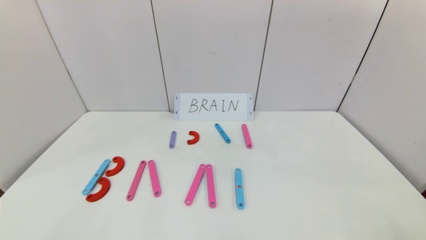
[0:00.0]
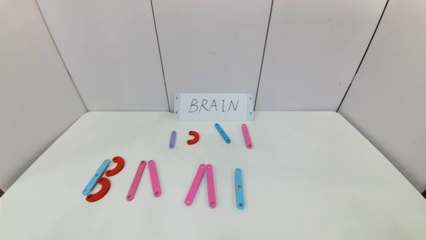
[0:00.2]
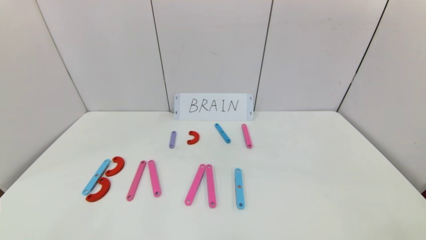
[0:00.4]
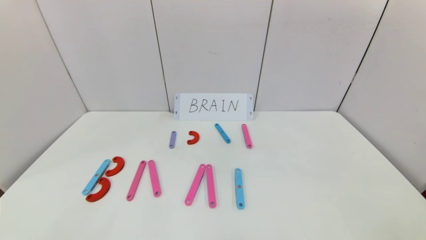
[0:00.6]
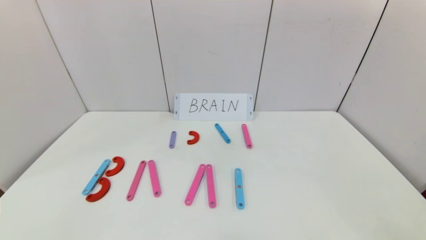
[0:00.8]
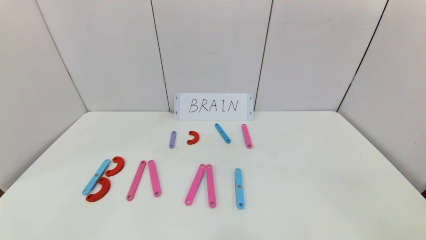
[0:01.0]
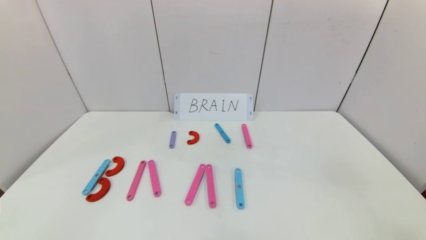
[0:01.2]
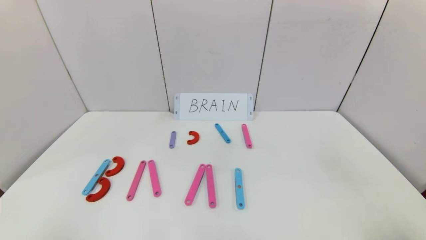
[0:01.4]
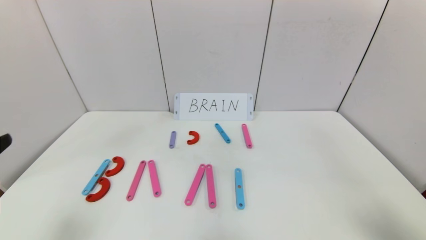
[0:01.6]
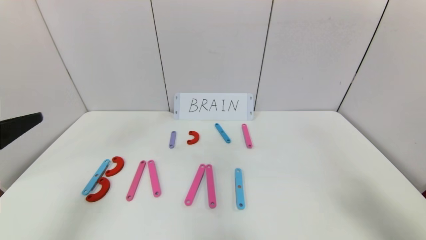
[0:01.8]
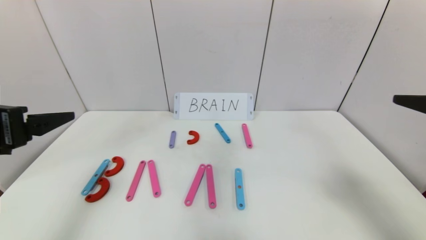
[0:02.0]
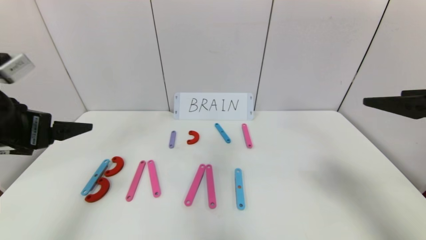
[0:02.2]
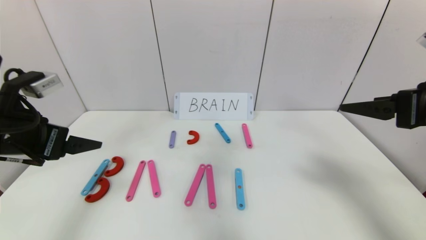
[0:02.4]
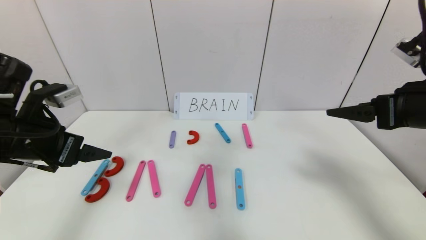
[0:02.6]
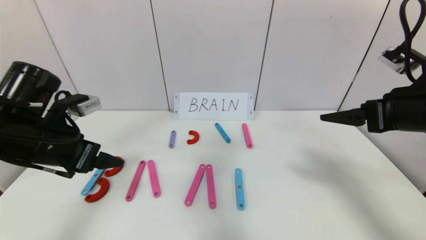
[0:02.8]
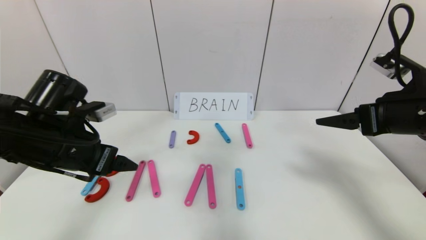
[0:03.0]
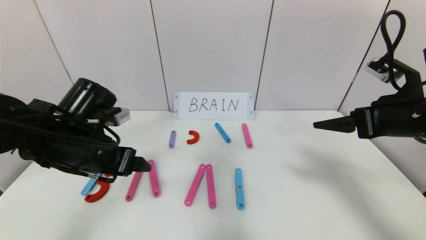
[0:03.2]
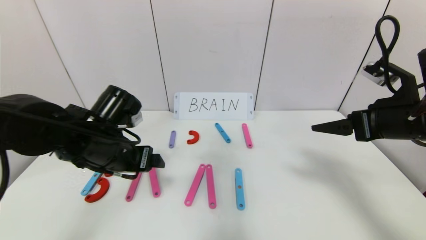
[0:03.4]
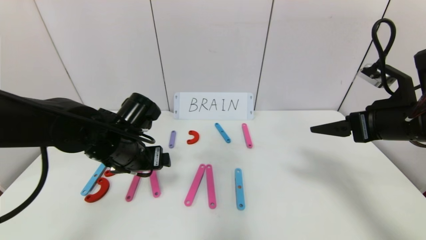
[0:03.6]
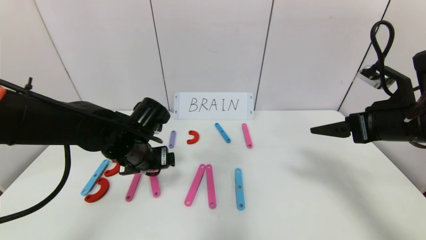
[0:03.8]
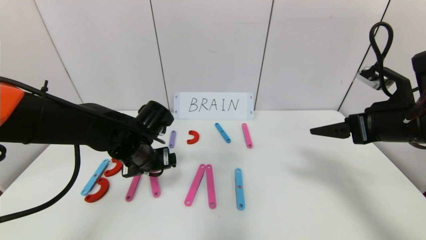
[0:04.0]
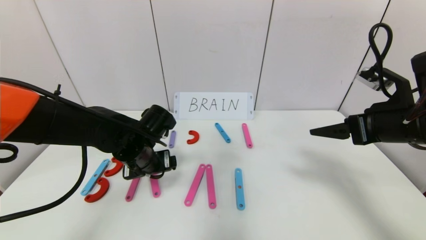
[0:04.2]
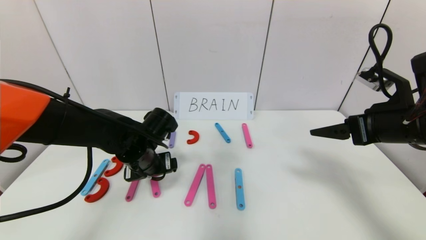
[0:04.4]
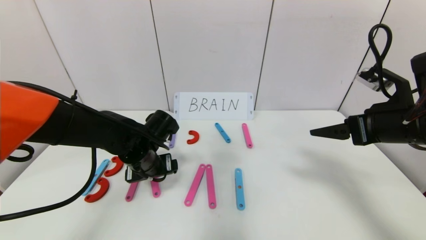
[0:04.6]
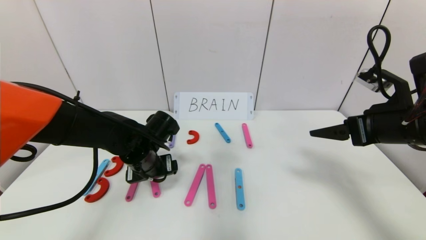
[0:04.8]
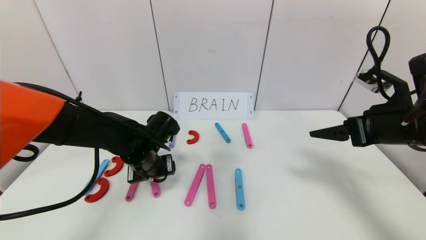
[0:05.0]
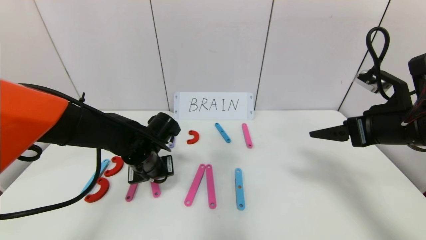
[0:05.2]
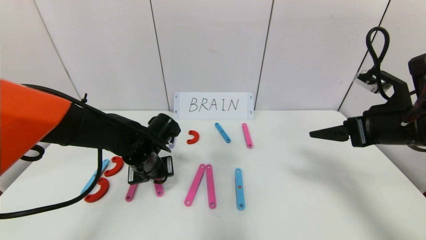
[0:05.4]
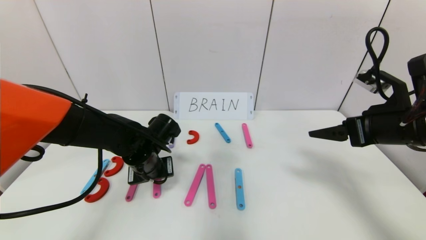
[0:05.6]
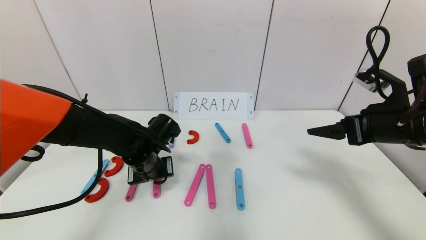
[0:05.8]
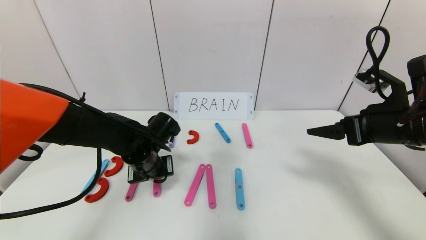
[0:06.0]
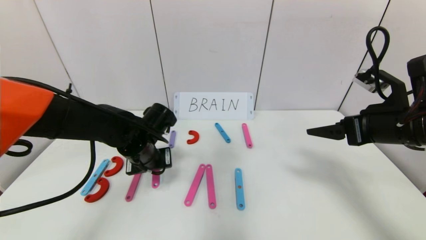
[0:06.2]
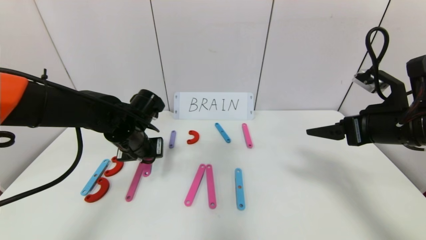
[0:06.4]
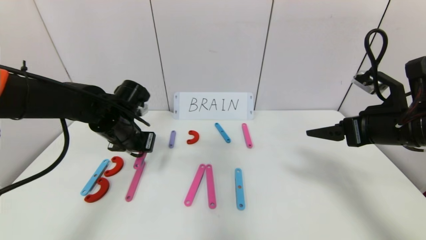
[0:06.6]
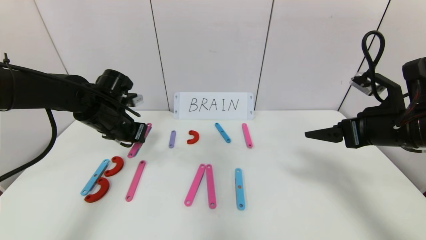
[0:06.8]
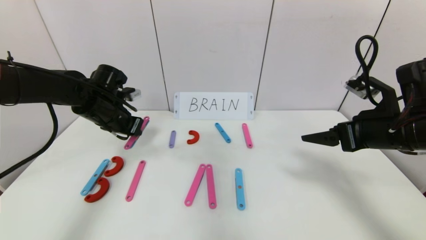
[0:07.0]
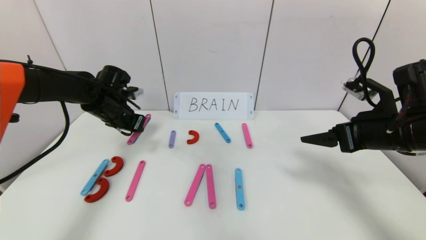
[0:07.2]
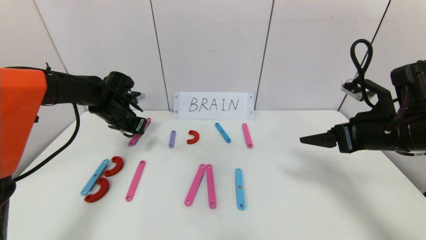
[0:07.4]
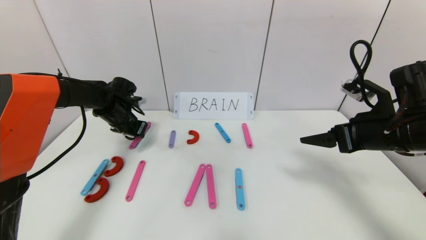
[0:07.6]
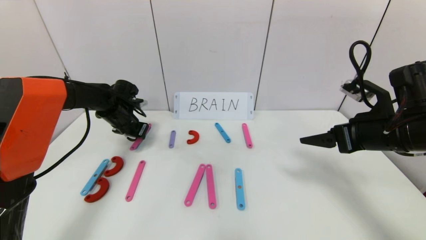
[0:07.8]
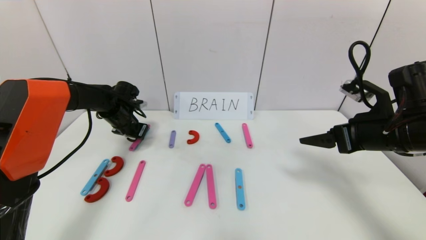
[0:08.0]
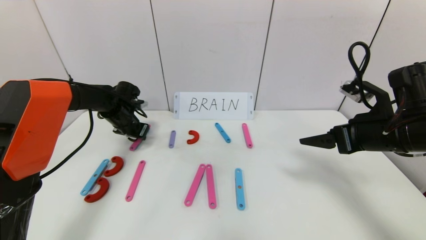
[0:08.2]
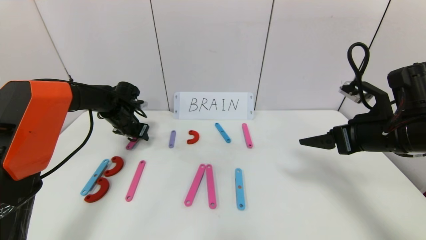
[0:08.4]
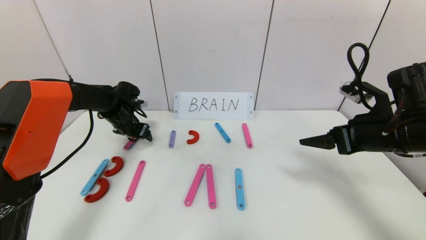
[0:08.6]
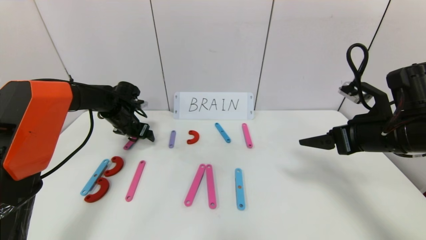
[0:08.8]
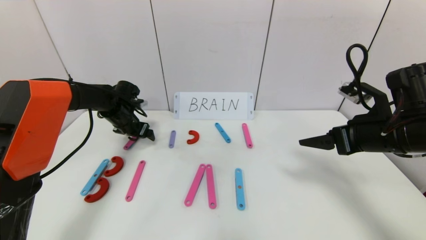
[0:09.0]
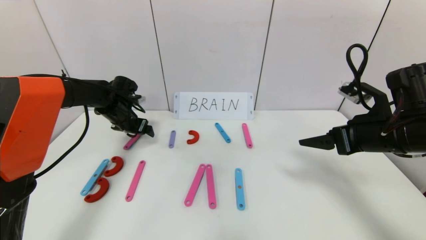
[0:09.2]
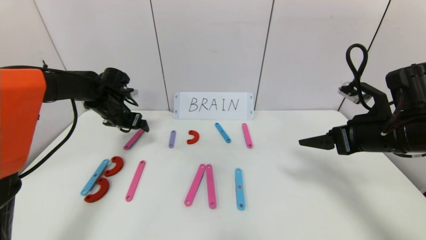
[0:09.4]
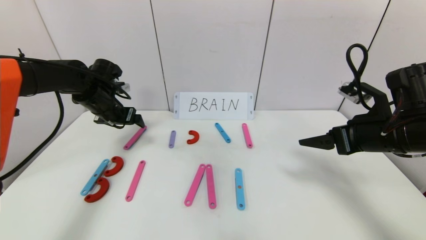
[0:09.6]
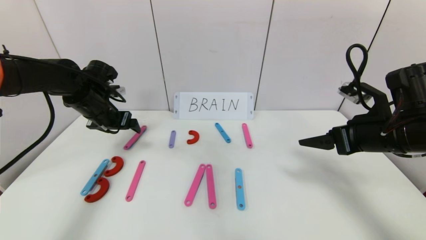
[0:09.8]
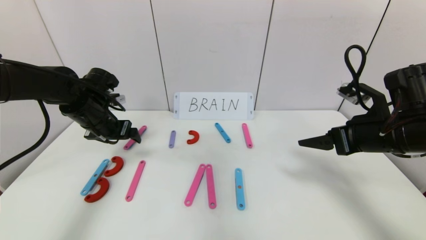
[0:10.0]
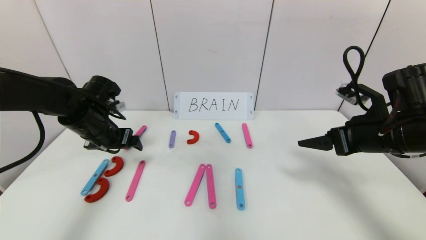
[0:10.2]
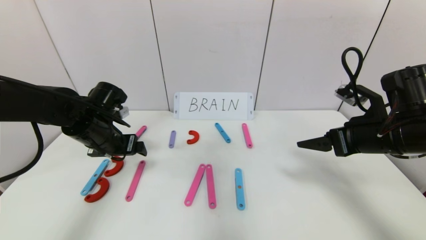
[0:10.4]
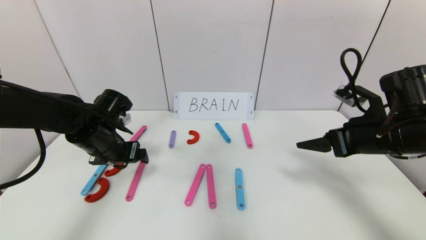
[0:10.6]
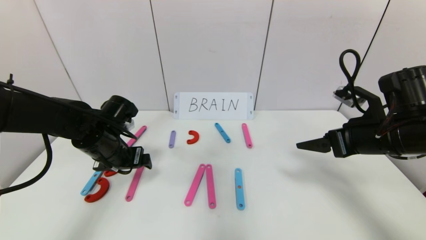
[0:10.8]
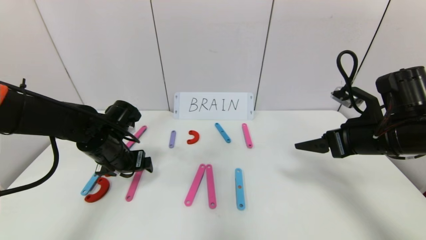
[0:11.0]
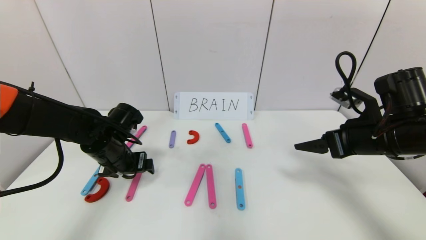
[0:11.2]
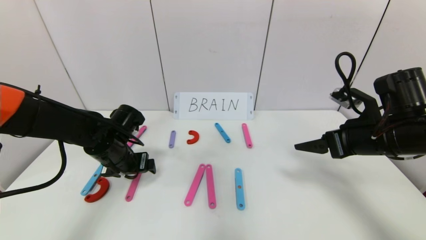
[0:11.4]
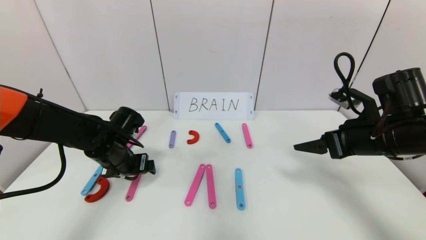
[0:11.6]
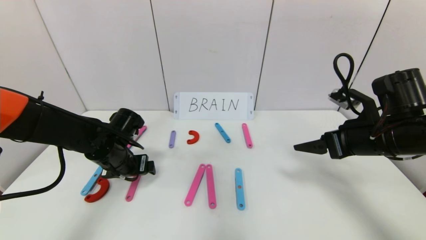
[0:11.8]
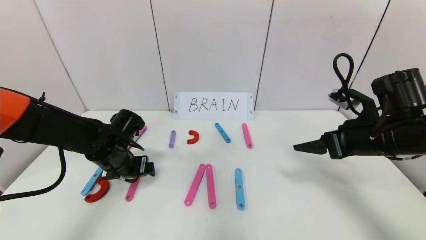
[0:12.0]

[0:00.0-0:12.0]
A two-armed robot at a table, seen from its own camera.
Task of the whole recording: rearrange the word baai as brain.
0:00.0 to 0:01.6: The right gripper is displaced upward by roughly 20 cm.
0:01.6 to 0:03.0: The two grippers go about 20 cm forward.
0:03.0 to 0:04.4: The left gripper moves to the right, downward and forward, roughly 15 cm.
0:04.4 to 0:06.0: The left gripper closes its fingers.
0:06.0 to 0:07.6: The left gripper travels forward and to the left by approximately 20 cm.
0:07.6 to 0:09.0: The left gripper opens up.
0:09.0 to 0:10.4: The left gripper is displaced backward by about 15 cm.
0:10.4 to 0:12.0: The left gripper shifts roughly 5 cm downward.

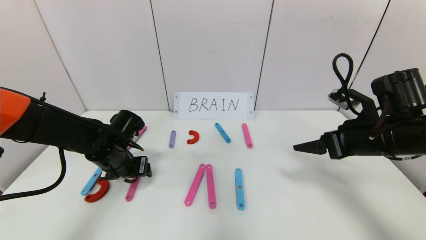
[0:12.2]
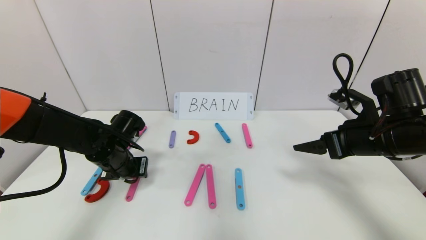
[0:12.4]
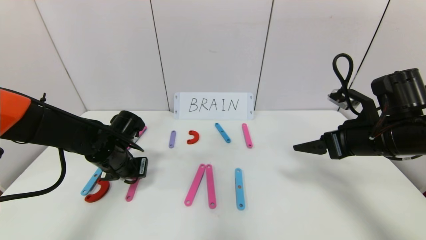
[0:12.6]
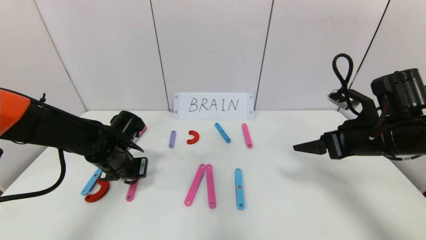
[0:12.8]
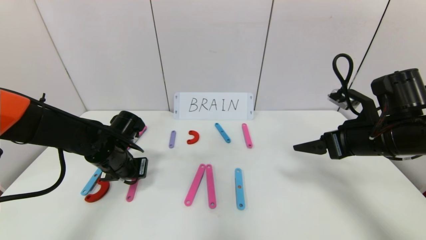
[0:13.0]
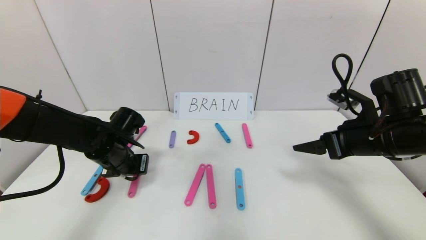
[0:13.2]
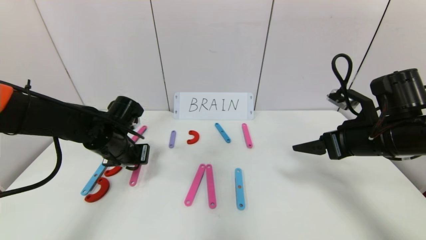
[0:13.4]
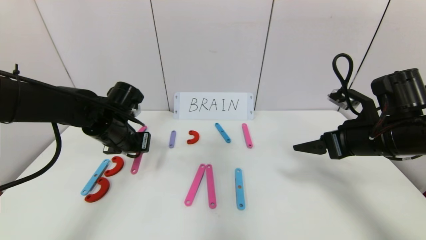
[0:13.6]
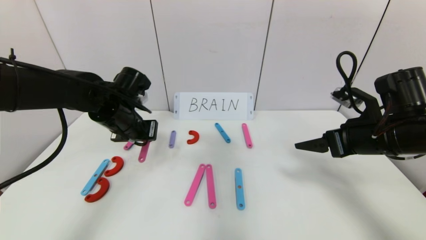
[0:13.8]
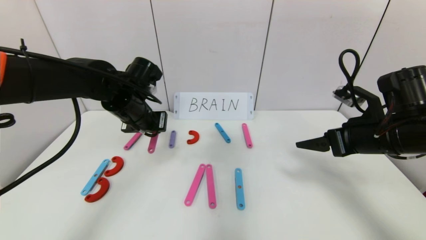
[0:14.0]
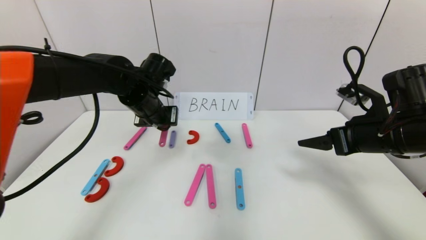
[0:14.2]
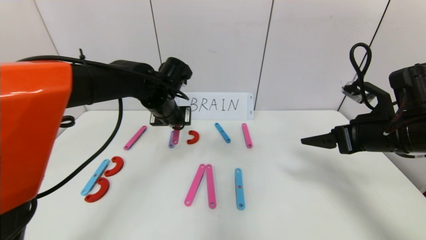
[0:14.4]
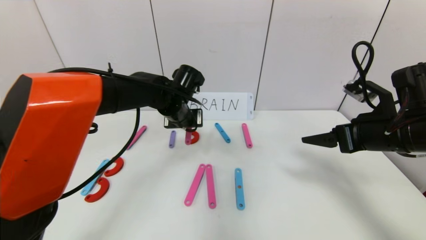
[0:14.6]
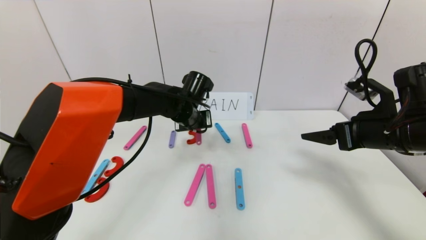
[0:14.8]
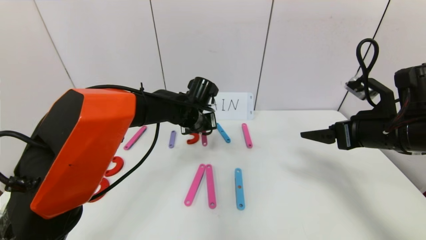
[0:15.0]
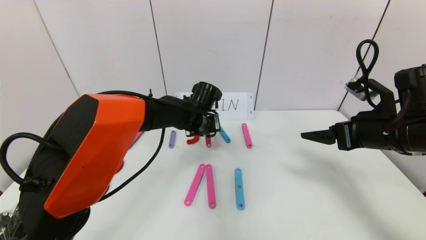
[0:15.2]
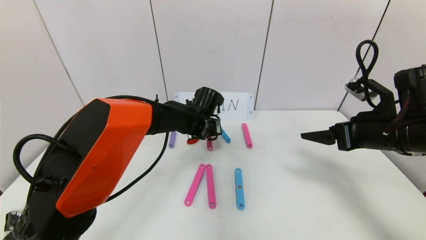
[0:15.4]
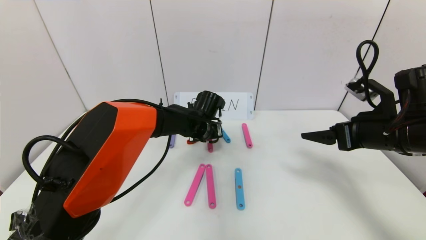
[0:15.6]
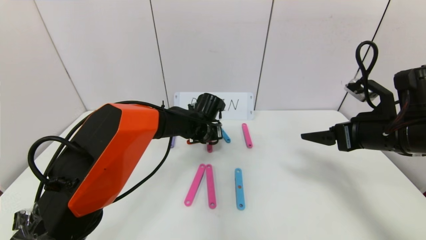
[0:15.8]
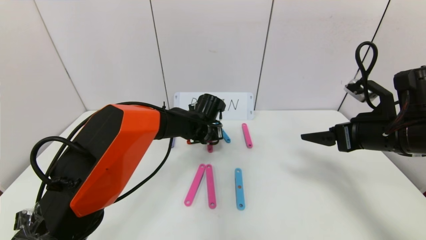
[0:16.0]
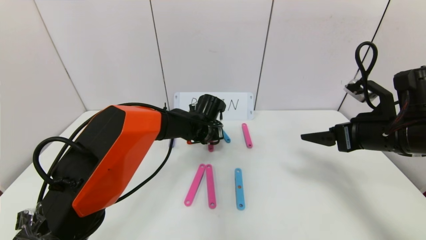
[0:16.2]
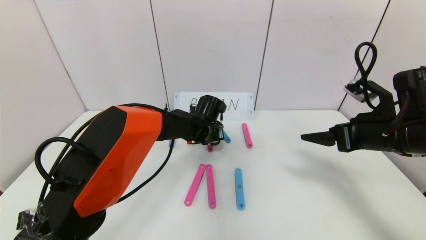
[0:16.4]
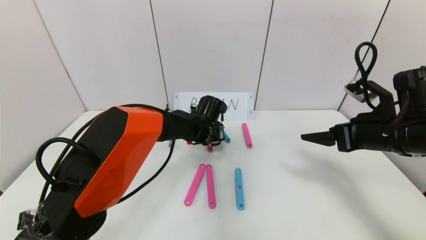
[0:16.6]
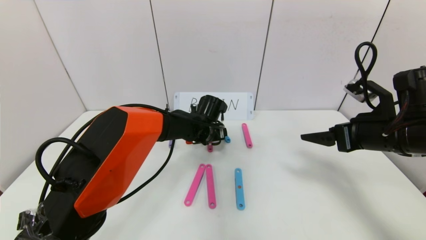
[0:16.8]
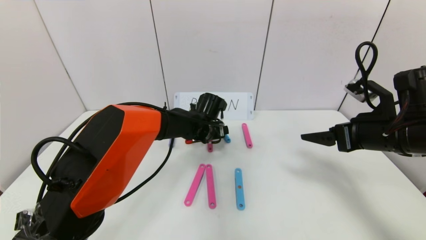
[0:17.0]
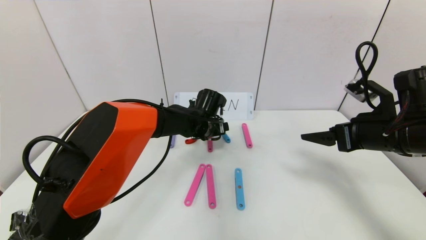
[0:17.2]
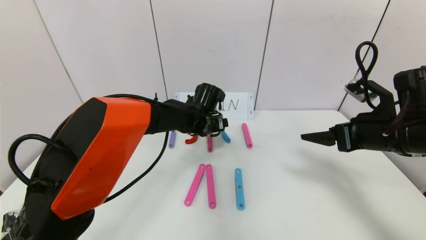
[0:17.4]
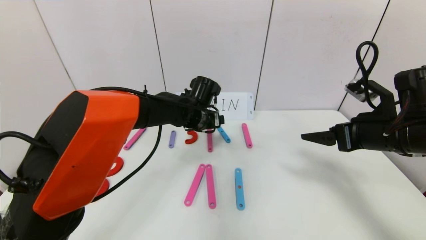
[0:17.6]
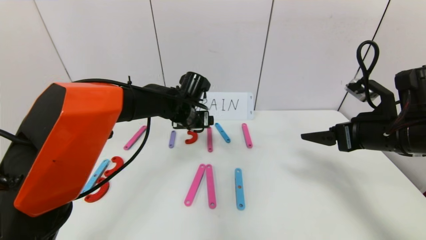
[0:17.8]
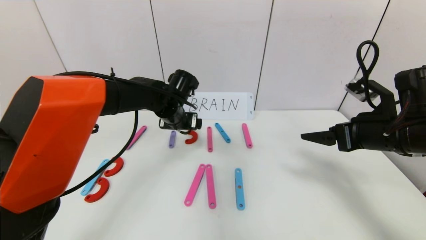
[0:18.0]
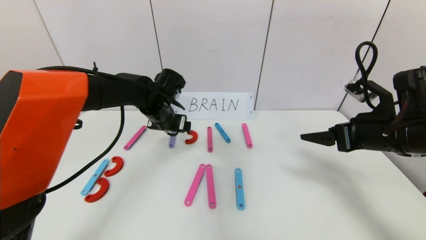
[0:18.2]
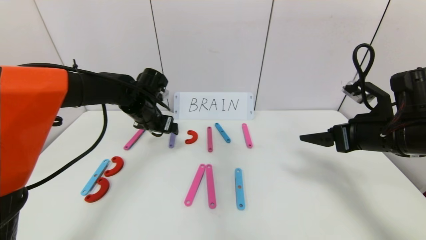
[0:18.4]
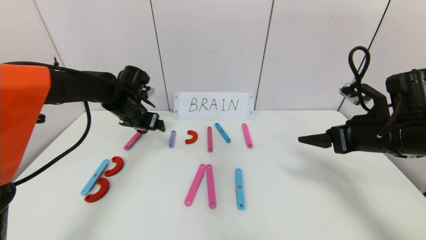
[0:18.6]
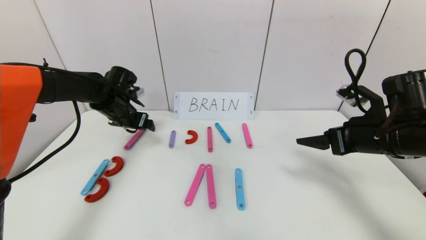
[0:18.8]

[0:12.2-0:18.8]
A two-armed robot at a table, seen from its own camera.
Task of the whole recording: rearrange the word baai as brain.
Step, 0:12.2 to 0:17.6: Disassemble the second character A.
0:12.2 to 0:13.8: The left gripper shifts some 10 cm upward, and closes.
0:13.8 to 0:15.4: The left gripper heads to the right, forward and downward, covering approximately 20 cm.
0:15.4 to 0:17.2: The left gripper opens.
0:17.2 to 0:18.8: The left gripper moves to the left, approximately 20 cm.
